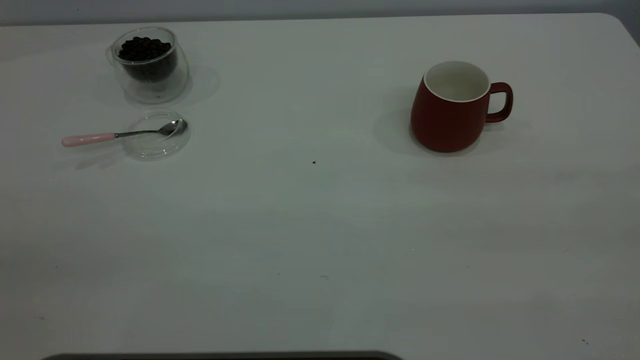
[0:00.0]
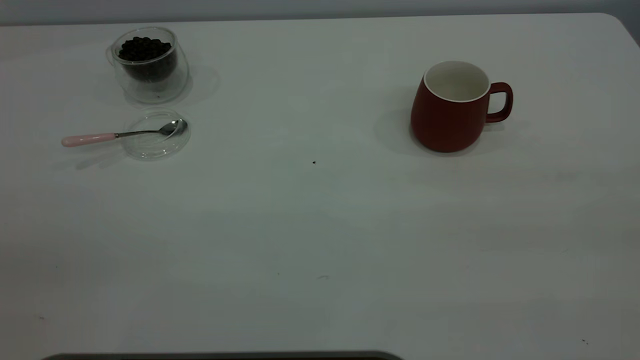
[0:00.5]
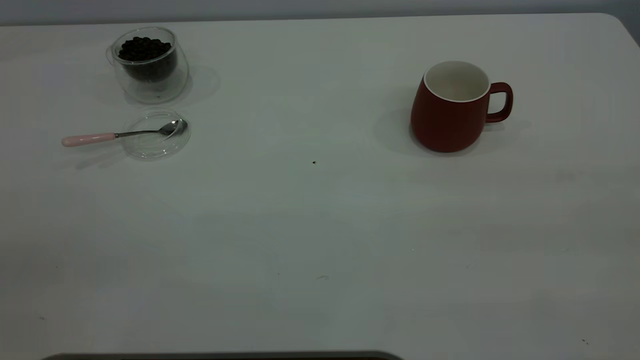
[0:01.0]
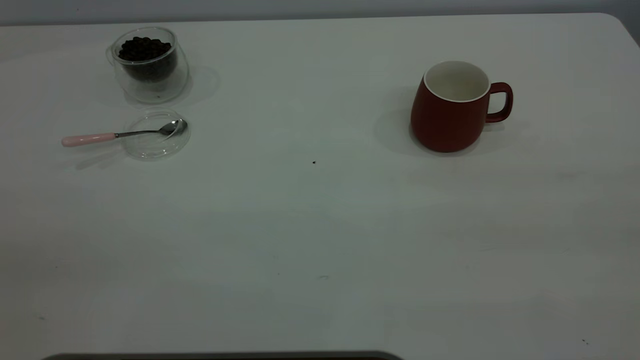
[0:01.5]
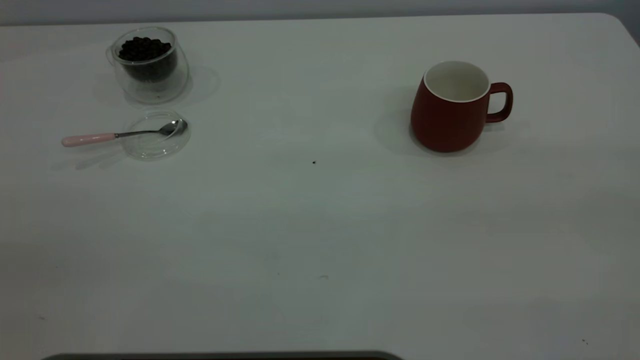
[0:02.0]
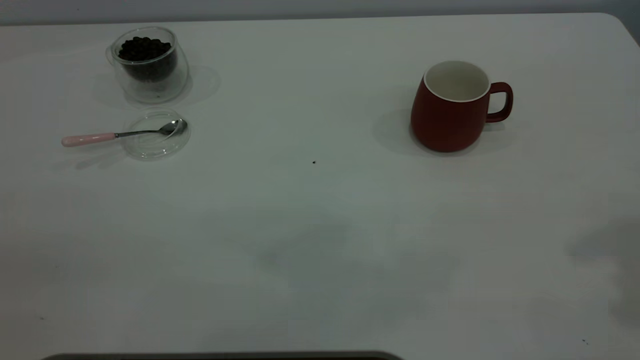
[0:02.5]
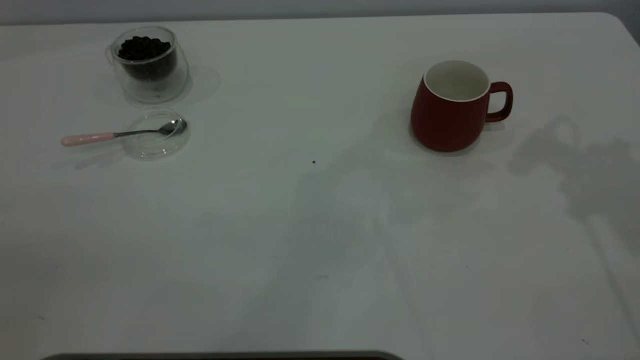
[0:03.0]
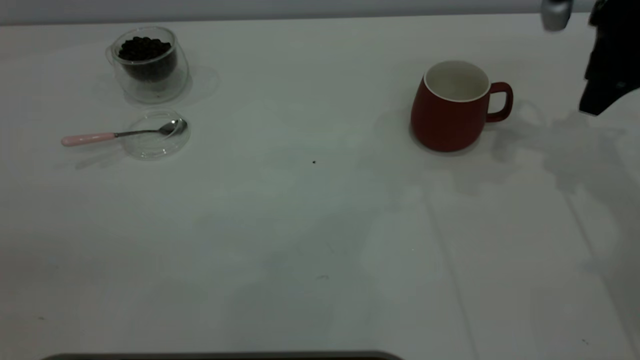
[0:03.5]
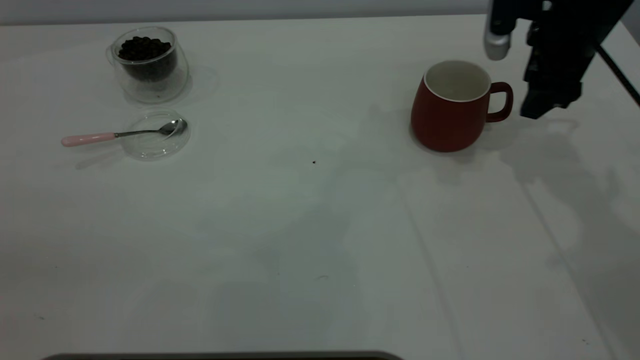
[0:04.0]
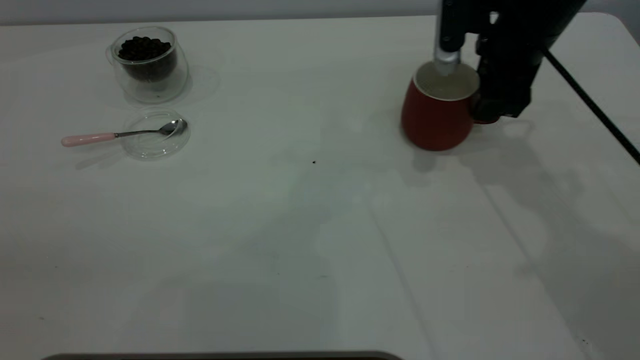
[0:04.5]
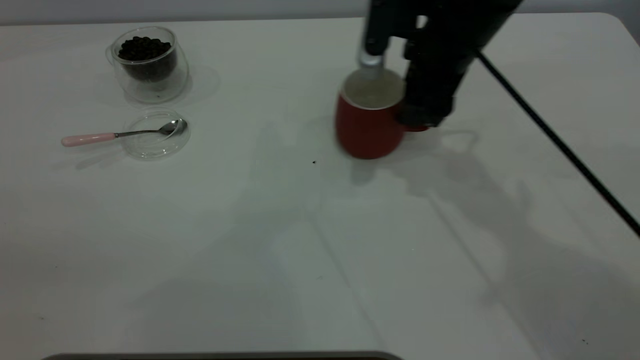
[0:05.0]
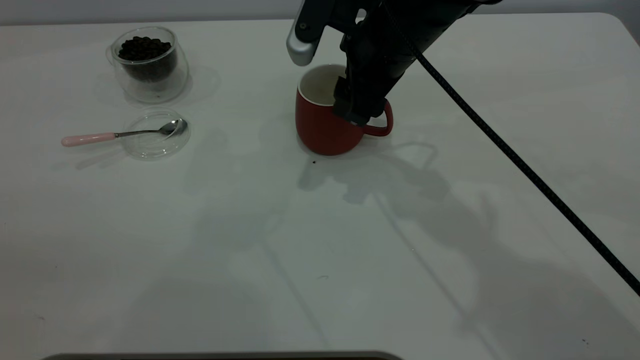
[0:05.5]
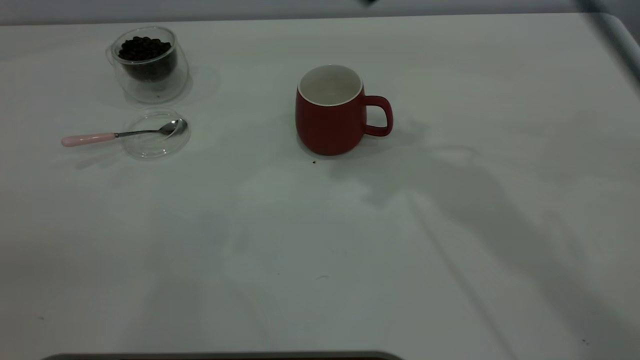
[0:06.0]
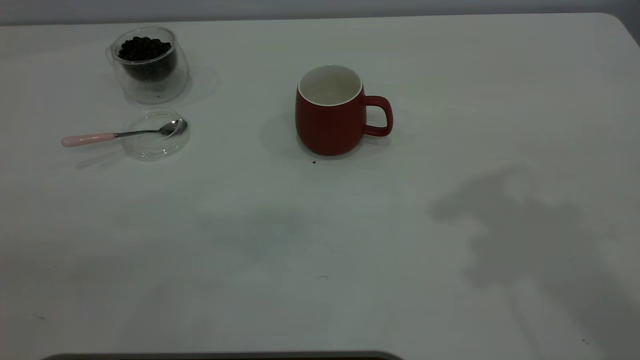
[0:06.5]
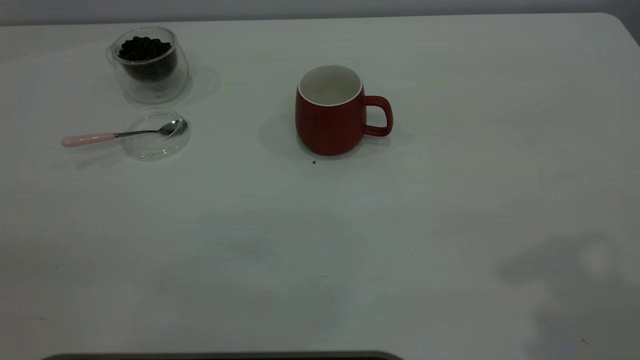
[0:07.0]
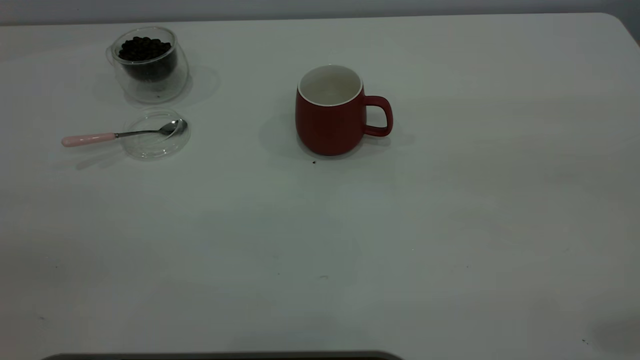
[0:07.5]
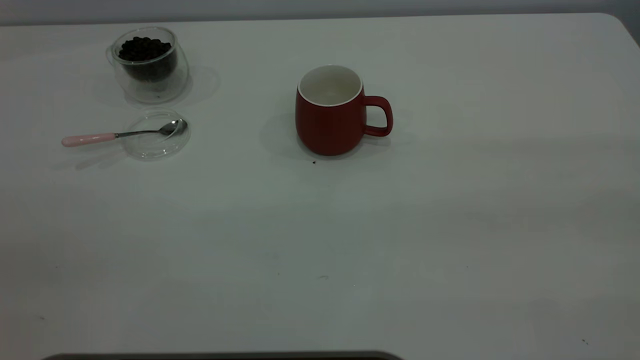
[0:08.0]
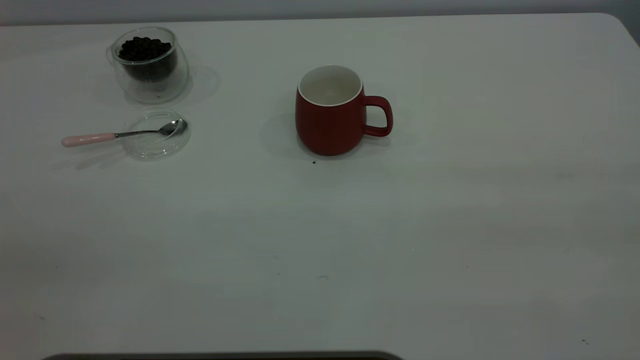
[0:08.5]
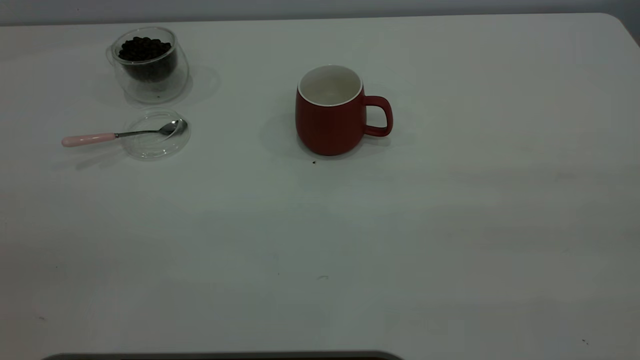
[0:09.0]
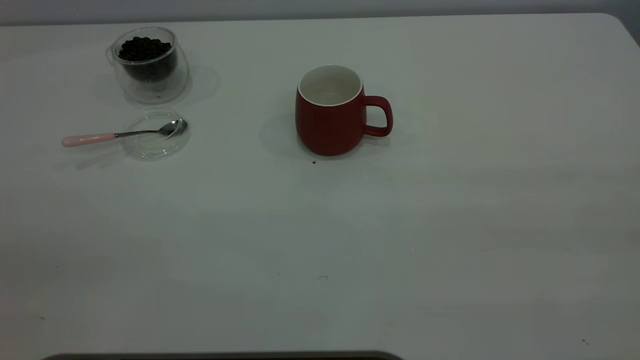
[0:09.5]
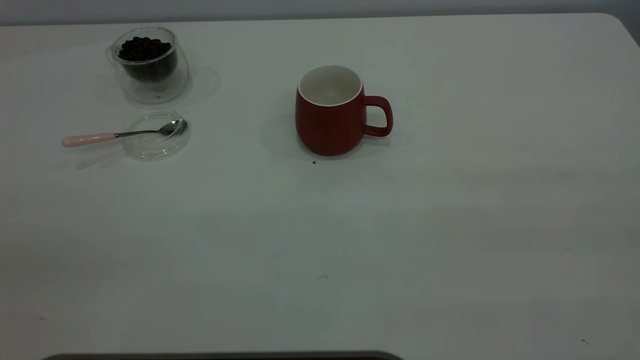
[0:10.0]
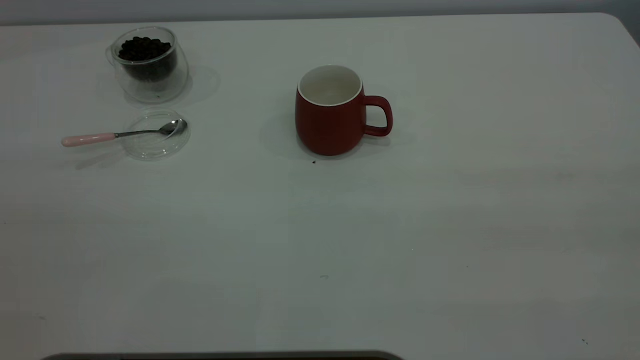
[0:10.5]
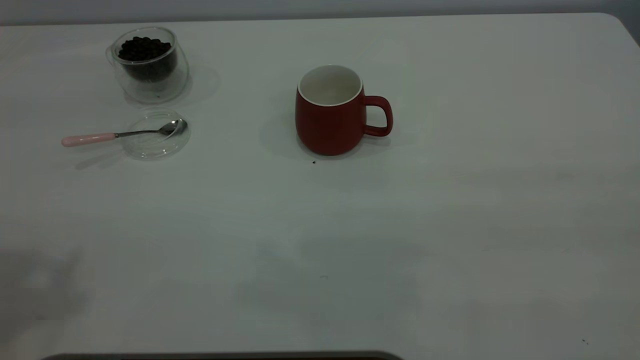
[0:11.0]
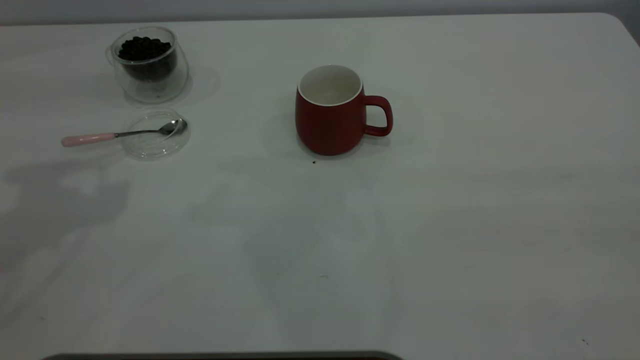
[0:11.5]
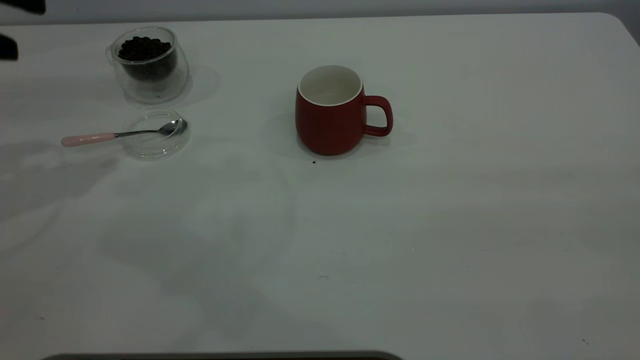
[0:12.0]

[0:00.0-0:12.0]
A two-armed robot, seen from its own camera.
Task of the whole recording: the right gripper place the red cup in the center of the table, the left gripper take the pink spoon from the cup lid and scoop out the coffee beans from the coffee cup and put them into the red cup, the left gripper put the spoon back into the cup lid.
Step, 0:00.0 to 0:05.5: Move the cup to the center of view.
0:02.0 to 0:04.0: The right gripper moves forward and downward, some 50 cm.
0:04.0 to 0:06.0: The right gripper goes approximately 20 cm upward and to the left.
0:06.0 to 0:08.0: The right gripper goes roughly 40 cm backward and to the right.

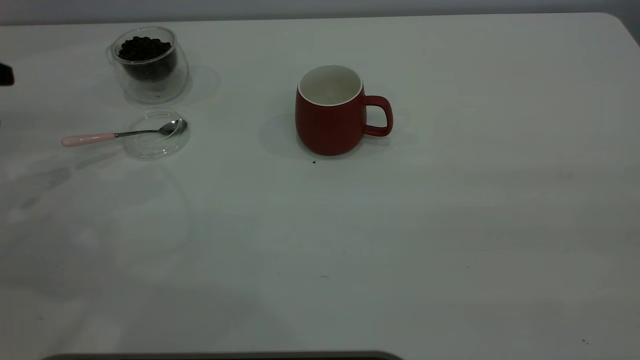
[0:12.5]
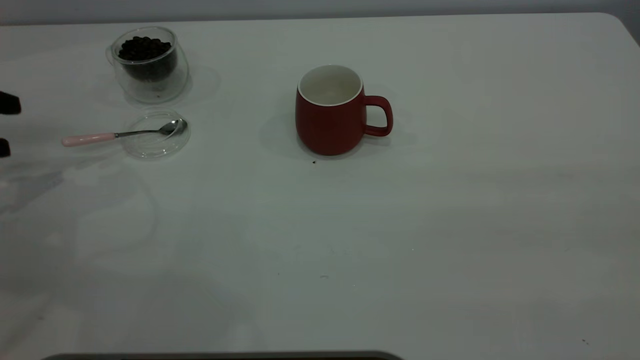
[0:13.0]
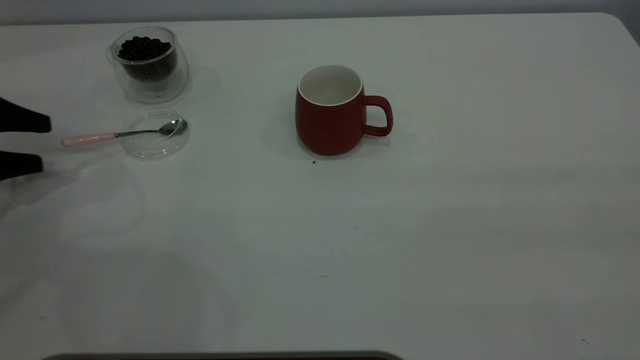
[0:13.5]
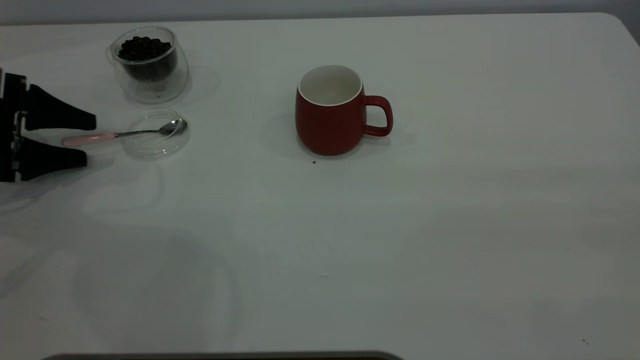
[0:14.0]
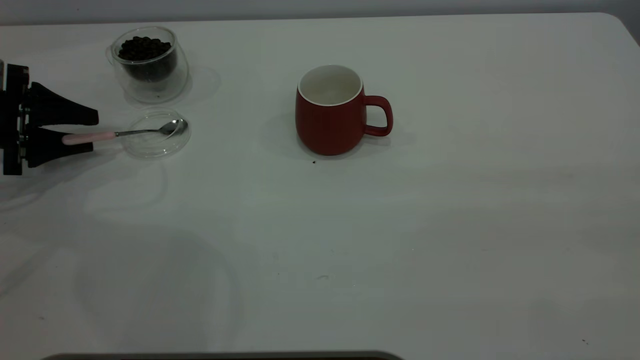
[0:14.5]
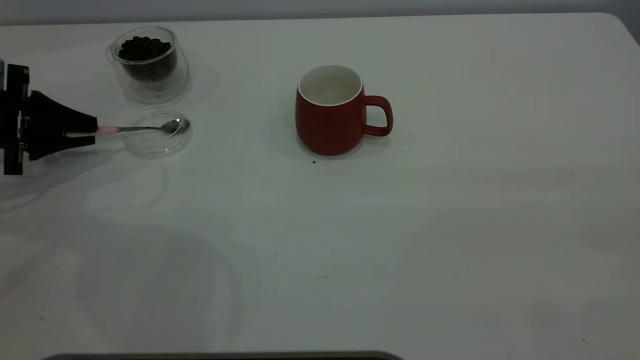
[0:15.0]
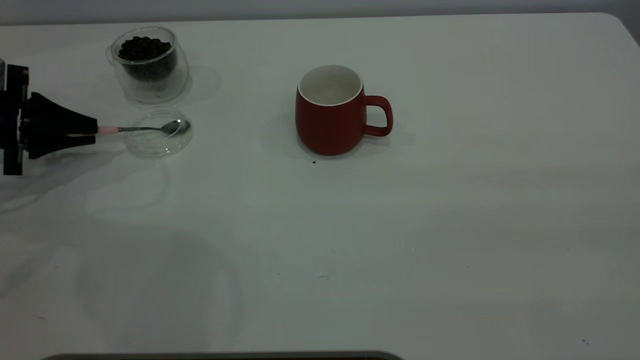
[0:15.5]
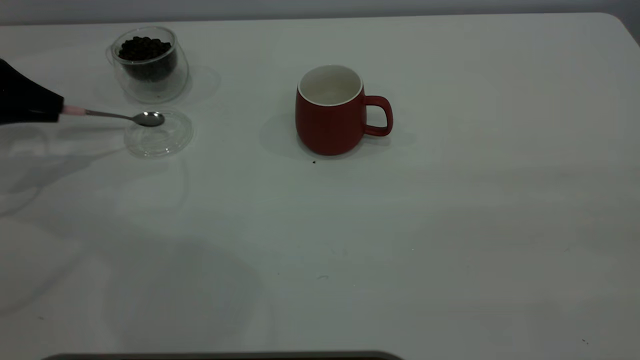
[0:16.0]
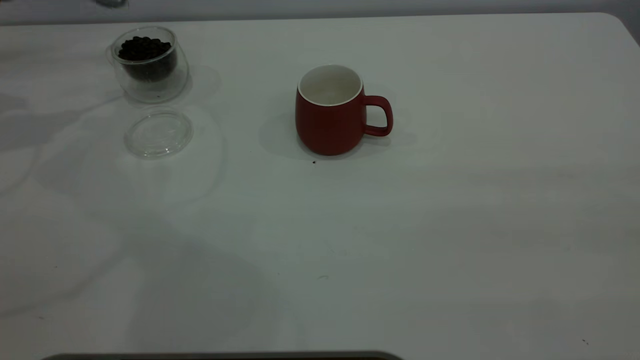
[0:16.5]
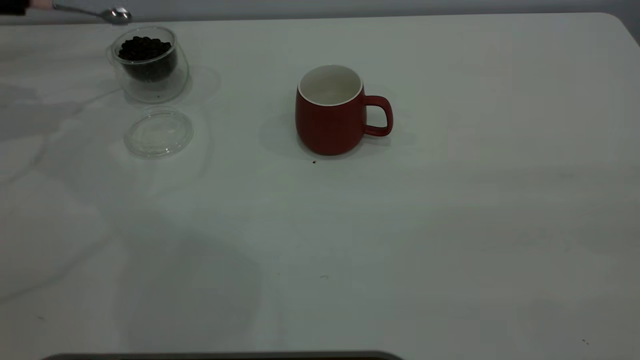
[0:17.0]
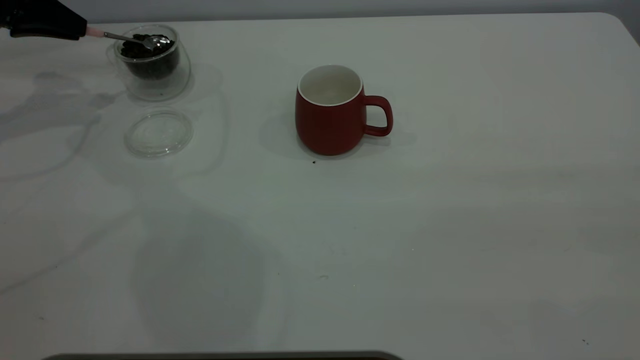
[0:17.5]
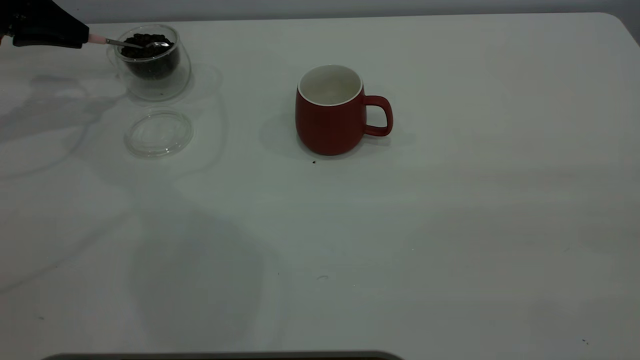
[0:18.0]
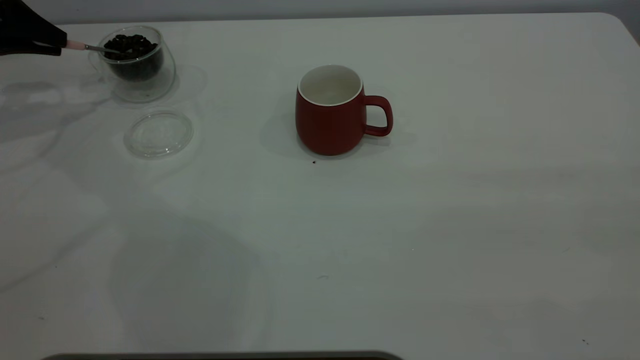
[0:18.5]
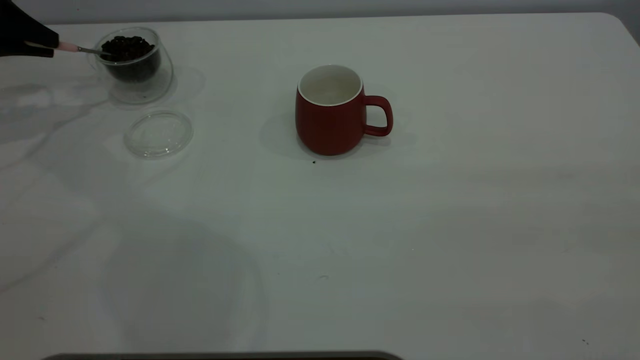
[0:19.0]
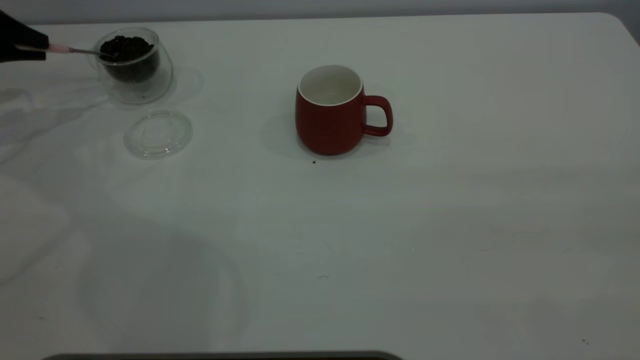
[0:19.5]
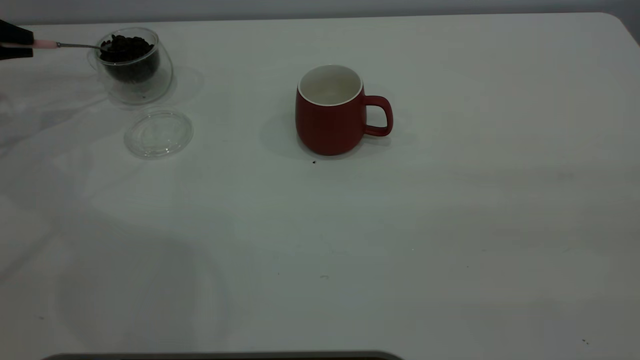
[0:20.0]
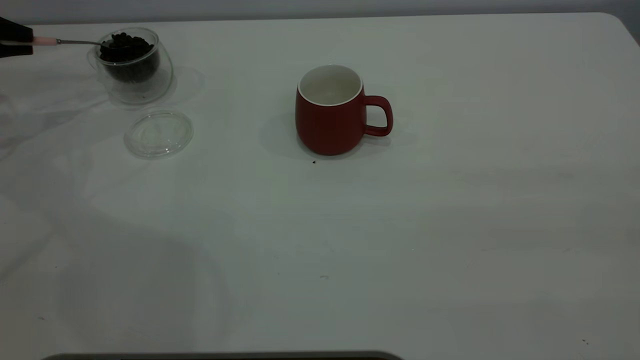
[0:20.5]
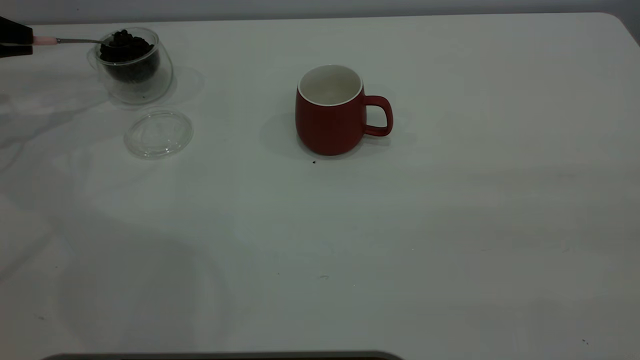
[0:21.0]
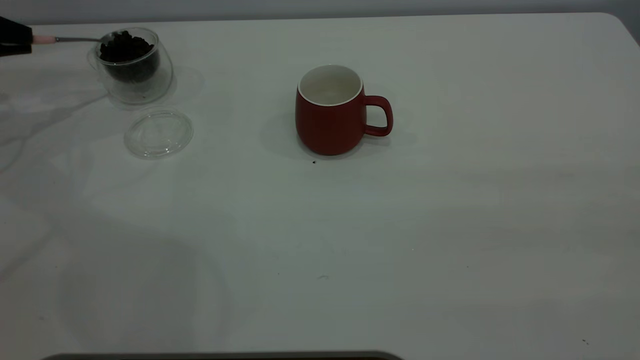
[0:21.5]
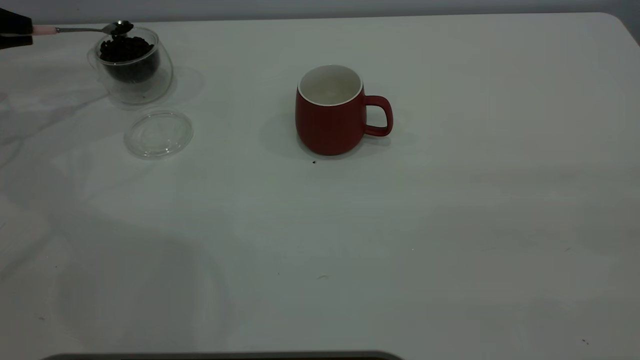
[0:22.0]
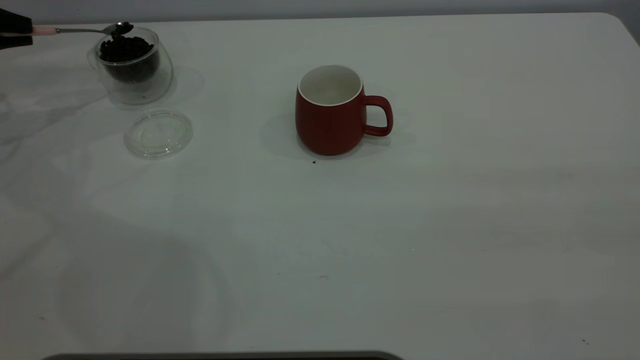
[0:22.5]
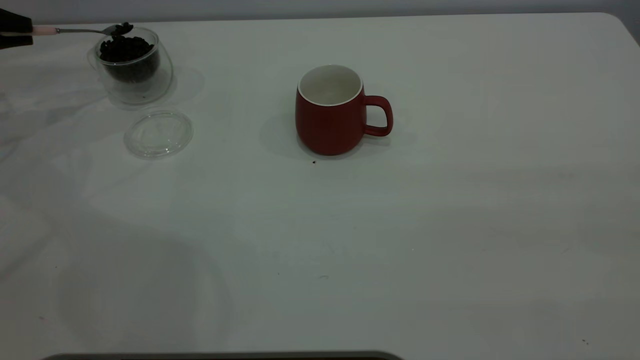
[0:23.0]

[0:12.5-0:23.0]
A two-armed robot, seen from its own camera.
Task of the whole recording: the right gripper place the red cup in the center of the table, the left gripper take the pink spoon from the cup lid and scoop out the coffee beans from the coffee cup and put them into the red cup, the left gripper put the spoon back into the cup lid.
Step, 0:12.5 to 0:16.0: Pick up the spoon.
0:12.5 to 0:14.5: The left gripper travels downward and forward by approximately 10 cm, and closes its fingers.
0:14.5 to 0:16.5: The left gripper goes about 15 cm upward, and closes.
0:16.5 to 0:19.0: The left gripper is displaced downward by about 5 cm.
